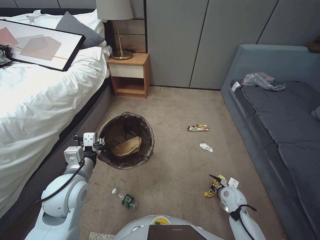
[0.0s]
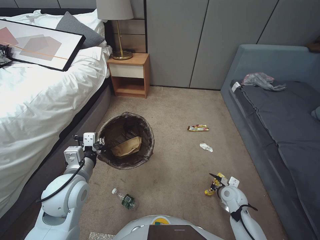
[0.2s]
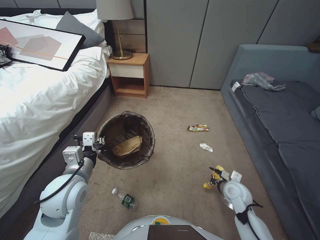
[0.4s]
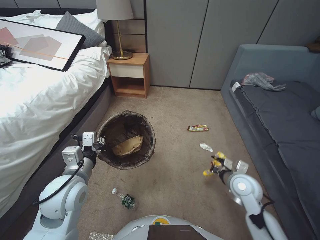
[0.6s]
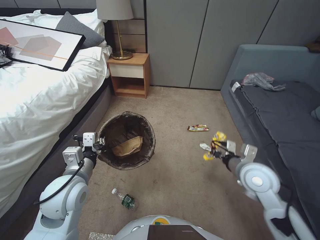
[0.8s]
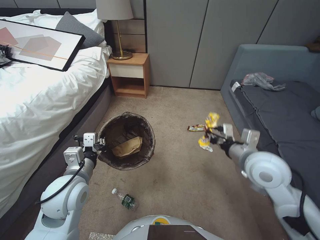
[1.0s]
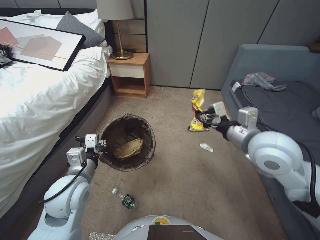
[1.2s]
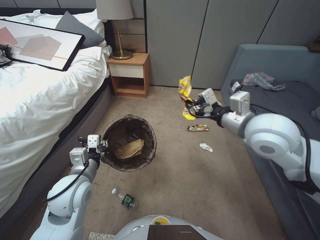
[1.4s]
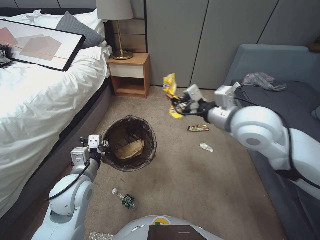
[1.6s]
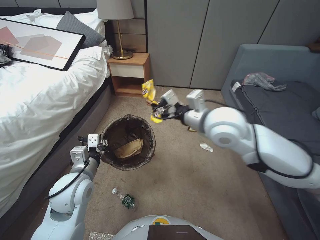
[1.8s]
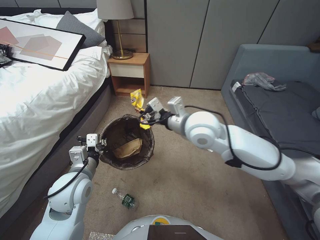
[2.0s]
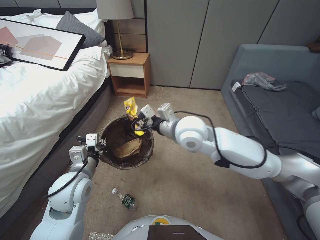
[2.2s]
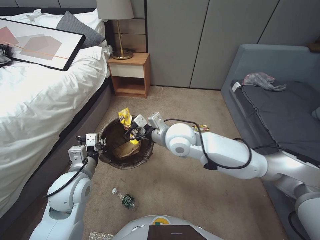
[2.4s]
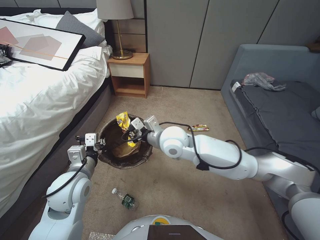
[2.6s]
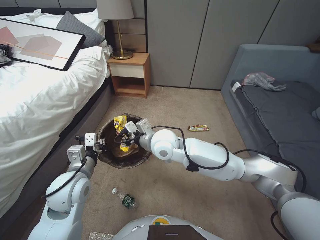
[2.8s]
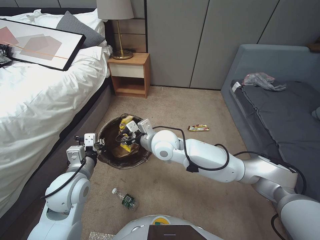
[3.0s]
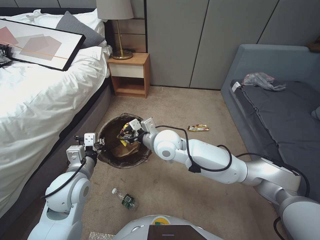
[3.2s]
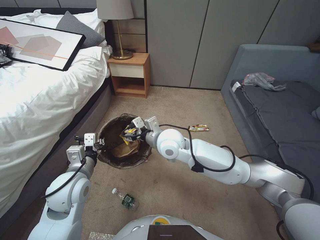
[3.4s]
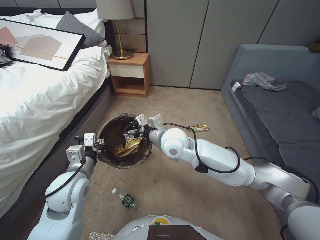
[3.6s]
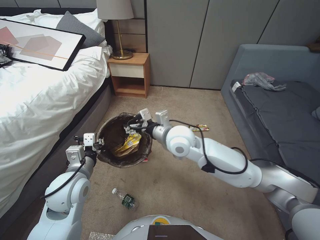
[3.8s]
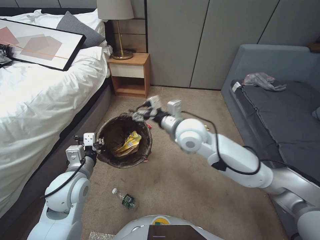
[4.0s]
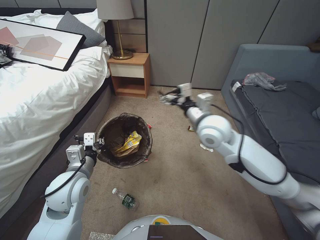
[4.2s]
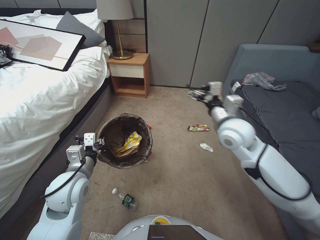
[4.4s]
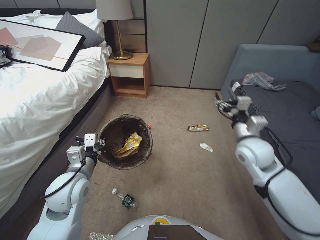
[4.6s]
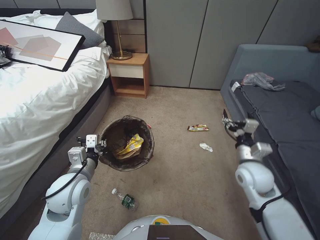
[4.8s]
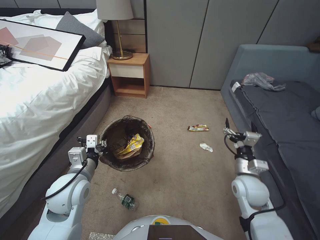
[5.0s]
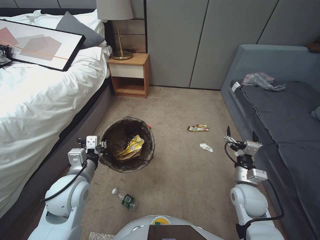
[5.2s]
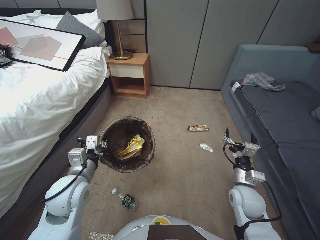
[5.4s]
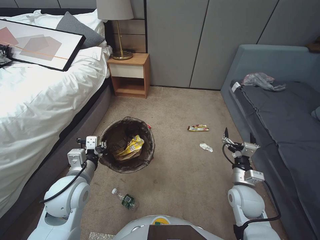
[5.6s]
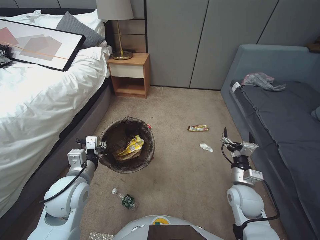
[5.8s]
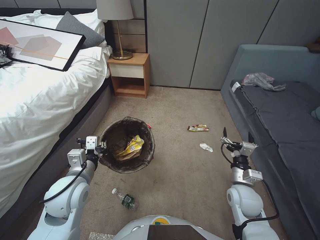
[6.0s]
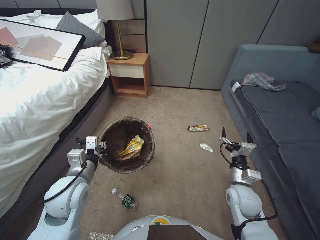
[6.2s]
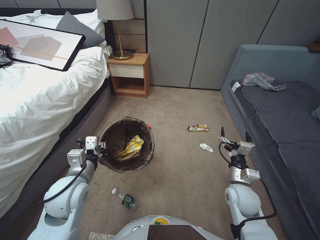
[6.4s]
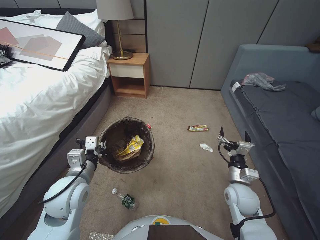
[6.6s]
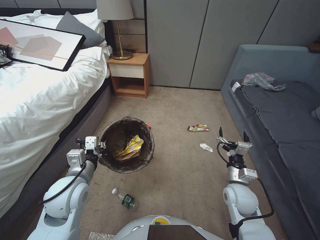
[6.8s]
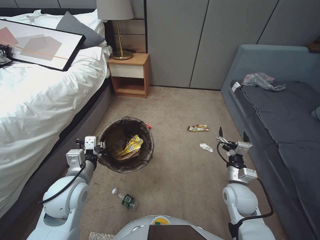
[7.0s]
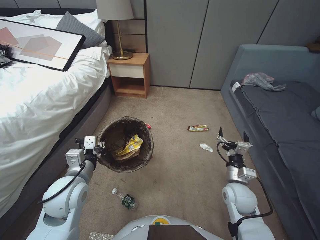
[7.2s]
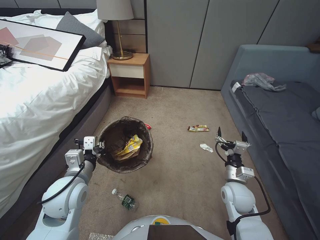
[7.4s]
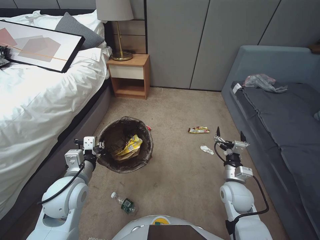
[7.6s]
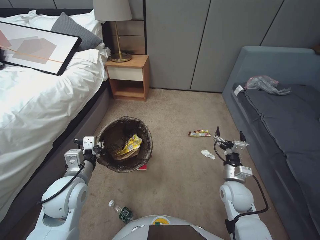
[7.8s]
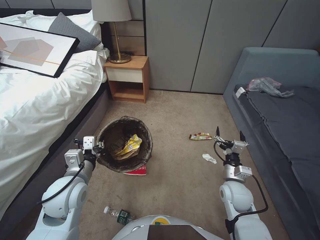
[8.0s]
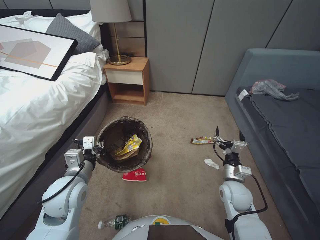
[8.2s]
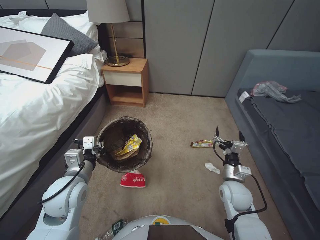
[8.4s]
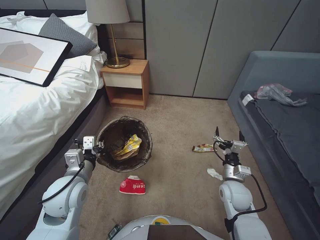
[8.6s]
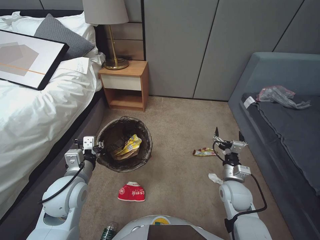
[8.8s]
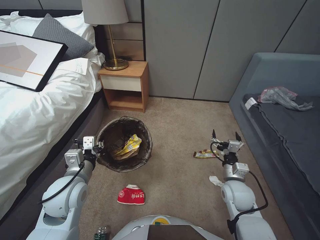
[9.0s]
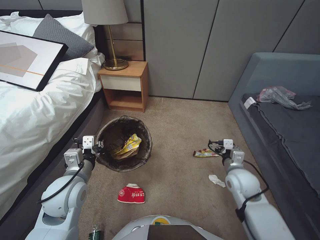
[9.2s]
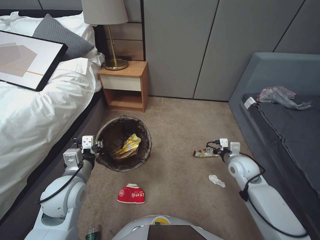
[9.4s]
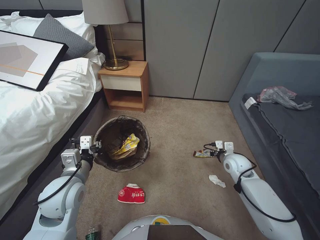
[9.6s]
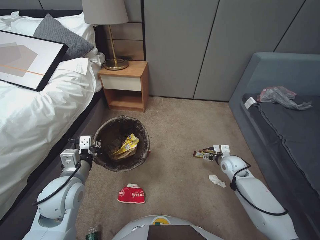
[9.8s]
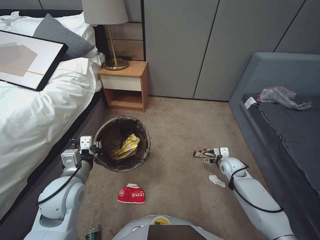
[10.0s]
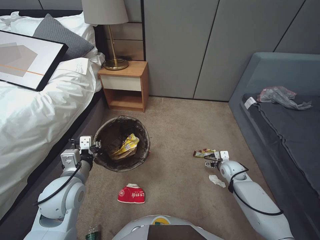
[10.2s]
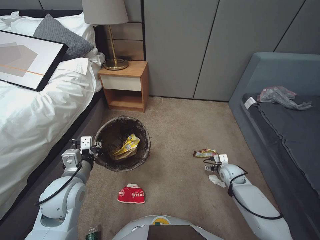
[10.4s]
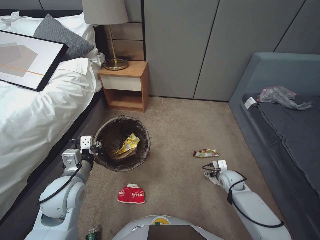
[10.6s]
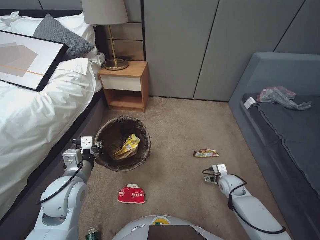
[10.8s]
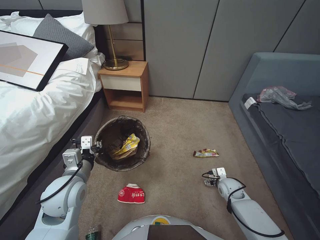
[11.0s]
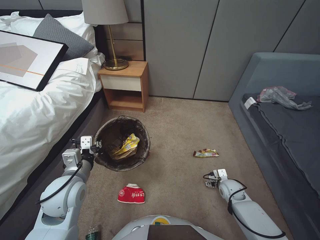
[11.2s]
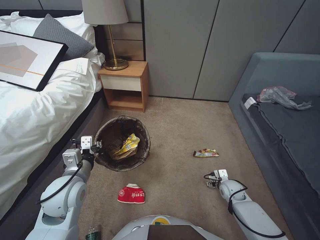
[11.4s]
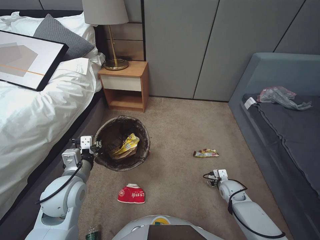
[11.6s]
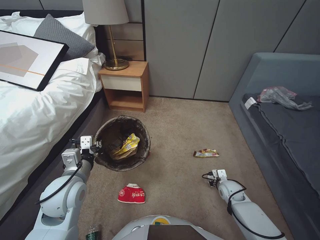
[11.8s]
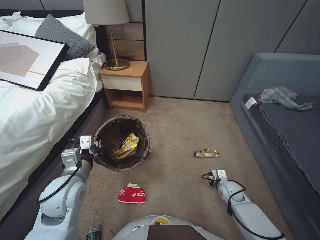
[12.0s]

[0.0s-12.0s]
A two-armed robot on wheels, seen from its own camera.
Task of the whole recording: Pick up the trash bin, then pick up the garbage from the floor and place it into the trash bin.
0.0s to 1.6s: The right gripper is displaced upward by roughly 40 cm.
1.6s to 3.0s: The right gripper is displaced to the left and downward by some 25 cm.
3.0s to 4.4s: The right gripper shifts some 15 cm to the right and upward, and opens up.
4.4s to 6.0s: The right gripper heads downward, to the right and backward, covering approximately 30 cm.
6.0s to 7.6s: The grippers stay close to where they were, moving slightly.
9.0s to 10.4s: The right gripper heads forward, downward and to the right, covering some 15 cm.
10.4s to 12.0s: The right gripper shifts approximately 10 cm backward and downward, and closes.

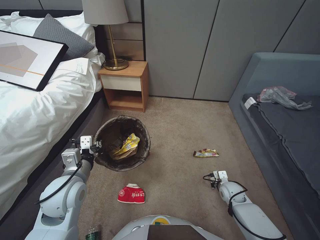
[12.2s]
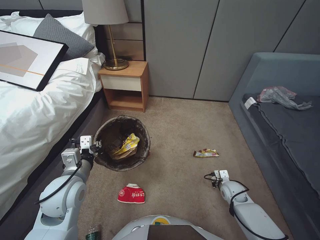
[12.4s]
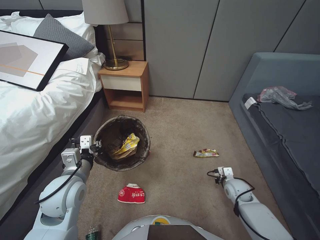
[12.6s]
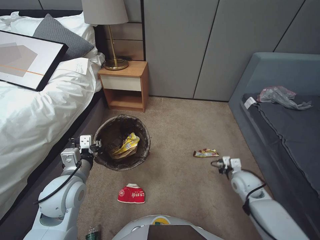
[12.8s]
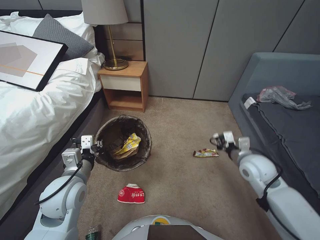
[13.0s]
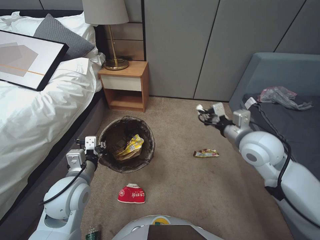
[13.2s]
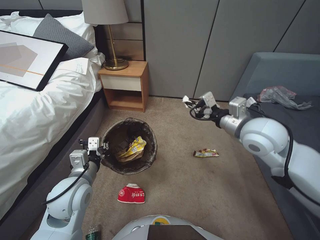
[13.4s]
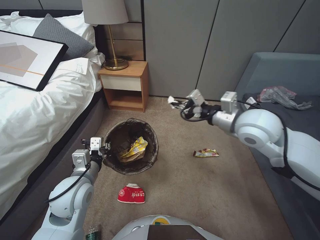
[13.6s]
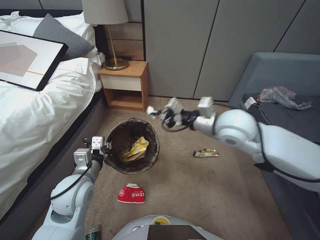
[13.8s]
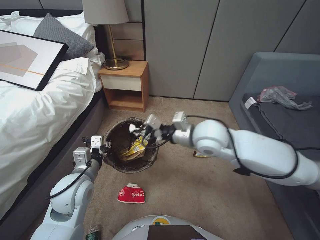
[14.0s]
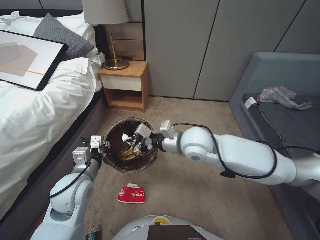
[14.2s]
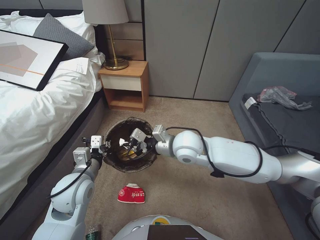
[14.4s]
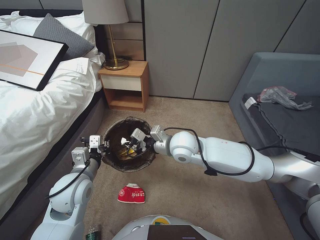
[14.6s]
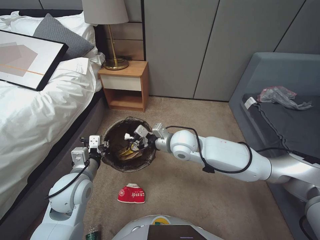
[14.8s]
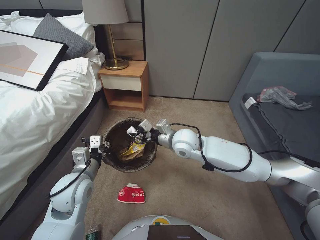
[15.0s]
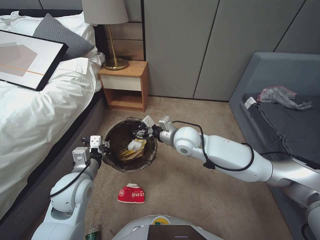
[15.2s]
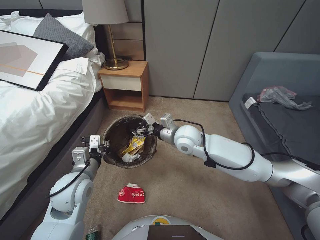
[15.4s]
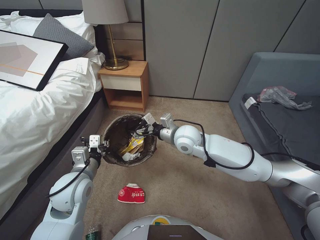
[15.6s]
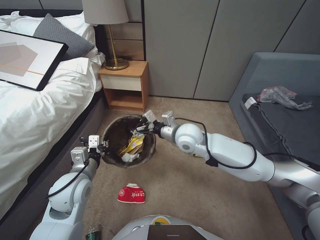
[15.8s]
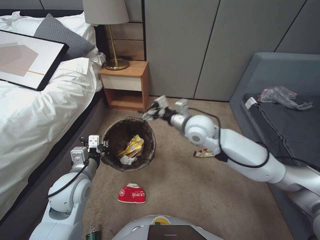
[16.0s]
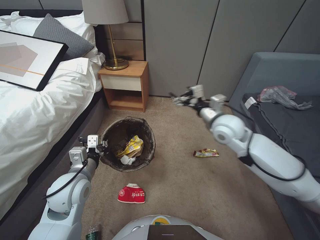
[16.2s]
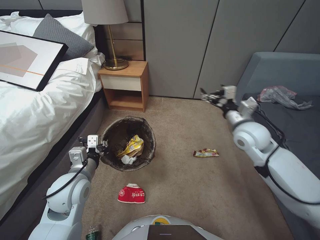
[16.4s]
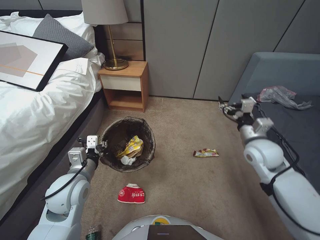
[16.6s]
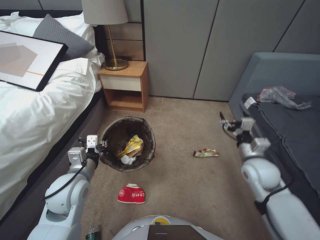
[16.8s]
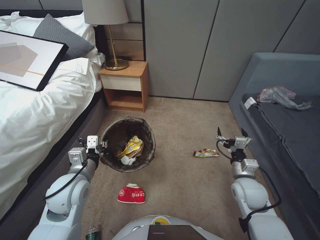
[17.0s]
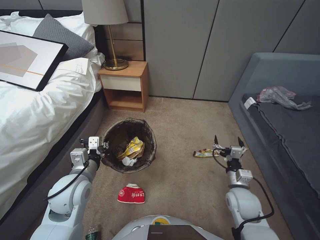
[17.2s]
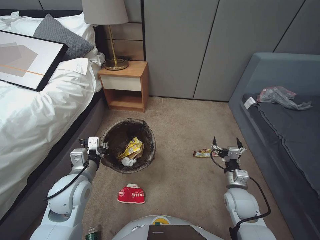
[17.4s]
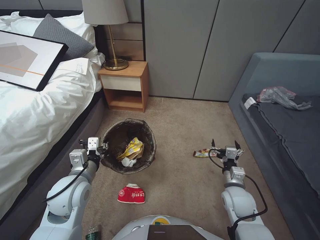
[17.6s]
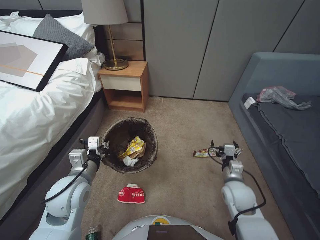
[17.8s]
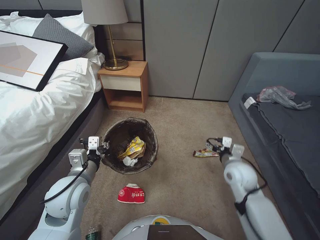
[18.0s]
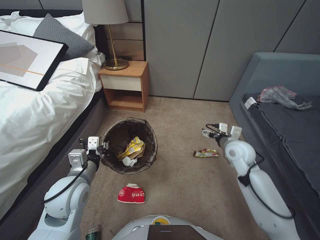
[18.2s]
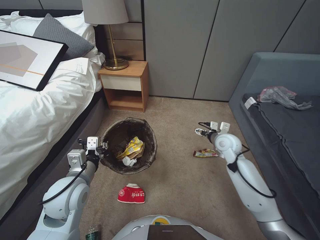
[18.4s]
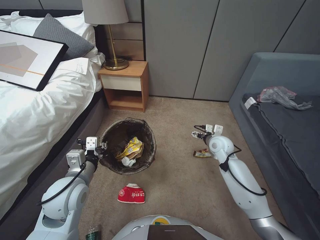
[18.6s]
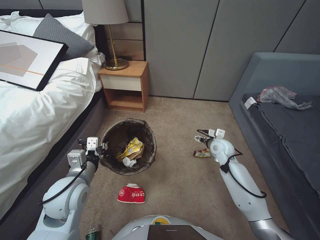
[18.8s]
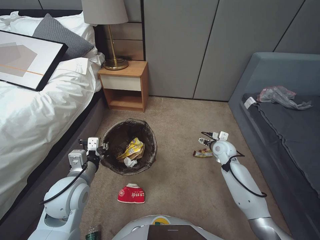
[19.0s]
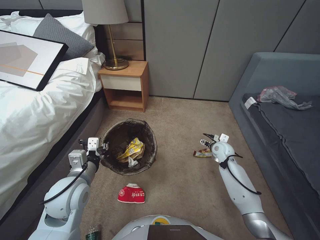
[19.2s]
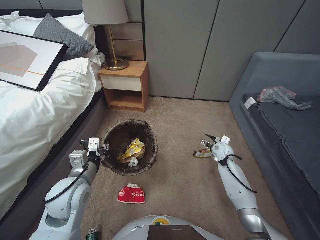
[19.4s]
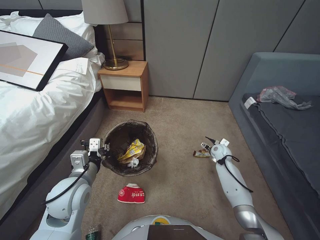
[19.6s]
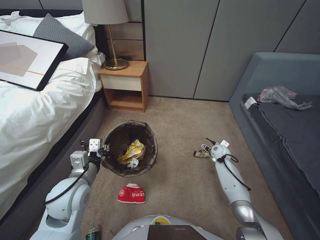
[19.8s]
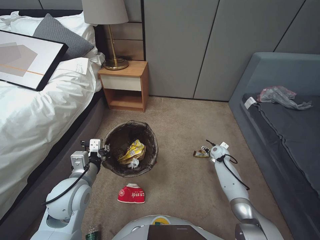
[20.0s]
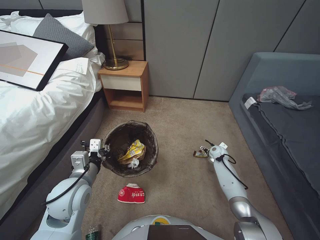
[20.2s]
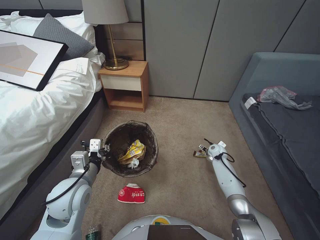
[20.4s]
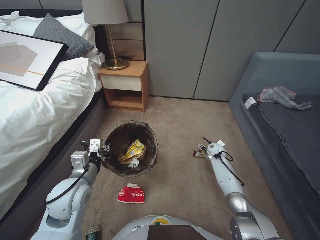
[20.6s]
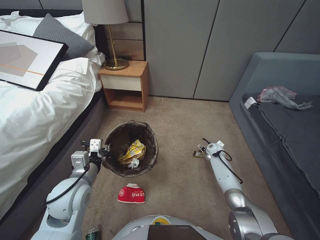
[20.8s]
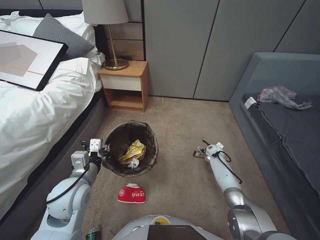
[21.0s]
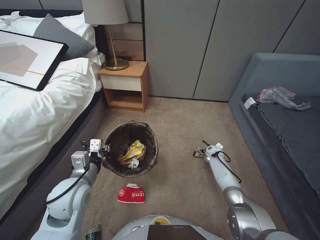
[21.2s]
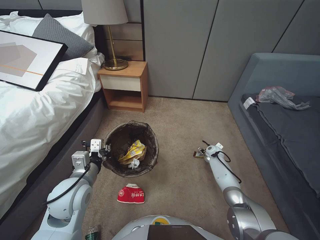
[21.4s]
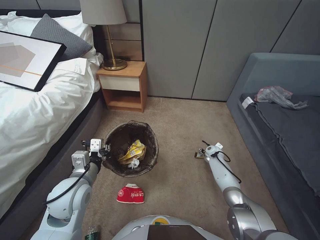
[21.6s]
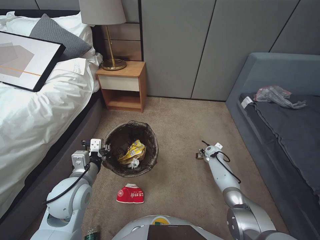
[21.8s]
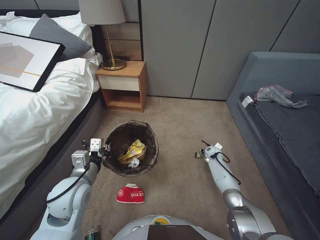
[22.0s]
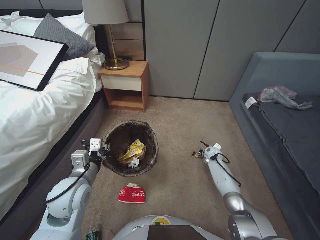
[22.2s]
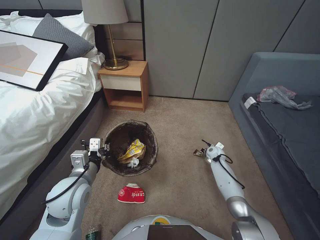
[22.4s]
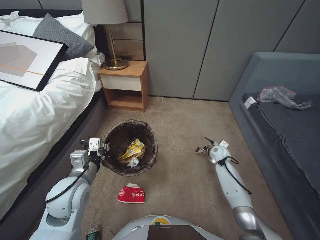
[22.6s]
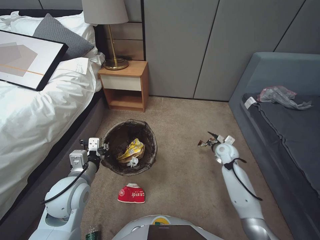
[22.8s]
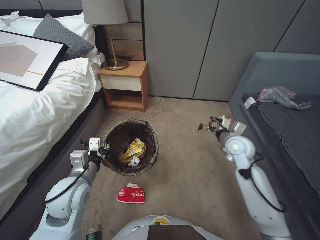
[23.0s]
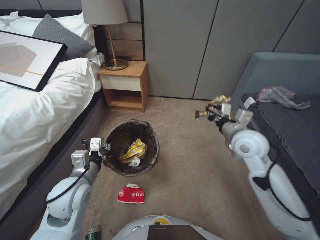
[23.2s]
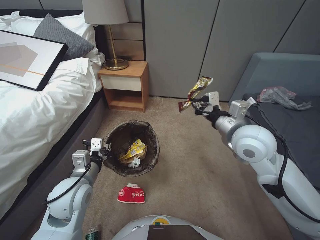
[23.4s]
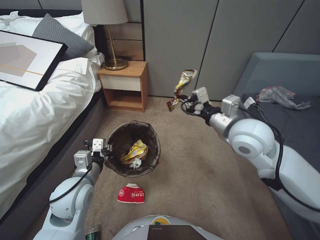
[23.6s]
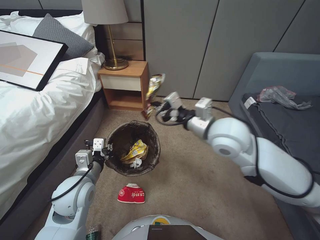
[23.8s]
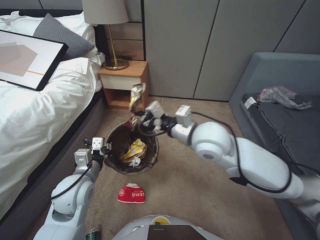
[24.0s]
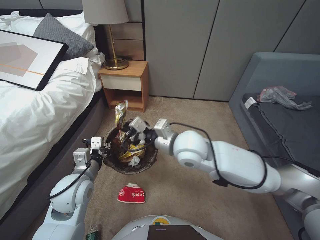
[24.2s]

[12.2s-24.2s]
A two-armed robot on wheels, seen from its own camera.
Task of the whole recording: Pick up the trash bin, then pick up the garbage from the floor and place it into the trash bin.
12.2s to 13.8s: The right gripper heads upward, covering approximately 40 cm.
13.8s to 15.2s: The right gripper moves downward and to the left, approximately 15 cm, and opens its fingers.
15.2s to 16.6s: The right gripper goes some 25 cm to the right, and opens.
16.6s to 18.2s: The right gripper is displaced downward by roughly 10 cm.
18.2s to 19.8s: The right gripper goes roughly 20 cm downward and forward.
19.8s to 21.2s: The right gripper is displaced downward by roughly 5 cm.
21.2s to 22.6s: The right gripper closes its fingers.
22.6s to 24.2s: The right gripper travels upward, to the left and backward by some 40 cm.
